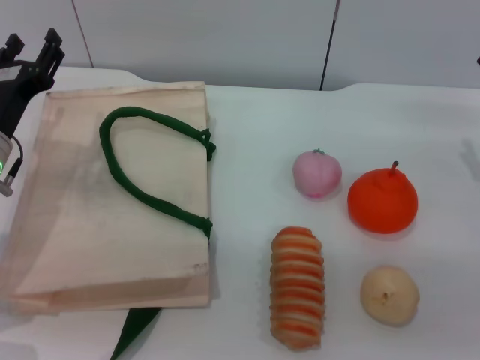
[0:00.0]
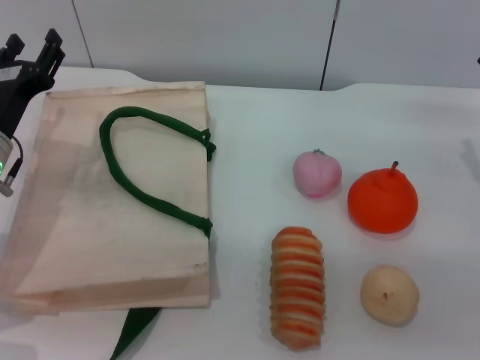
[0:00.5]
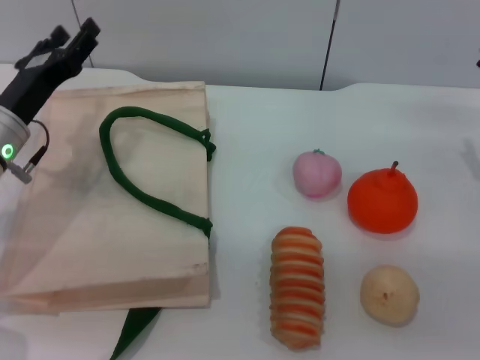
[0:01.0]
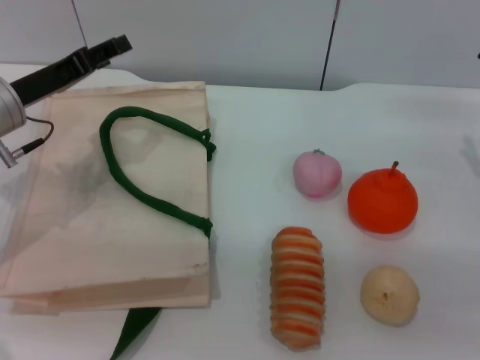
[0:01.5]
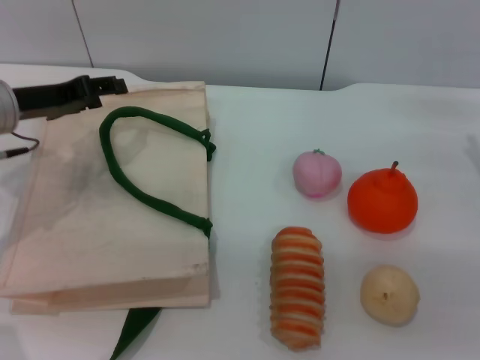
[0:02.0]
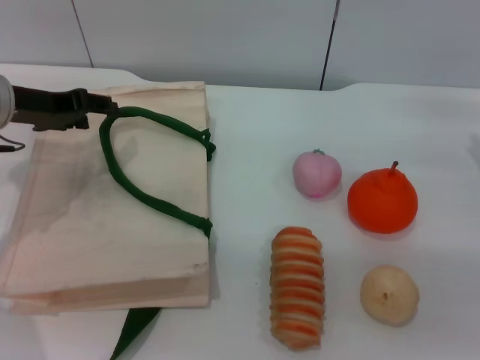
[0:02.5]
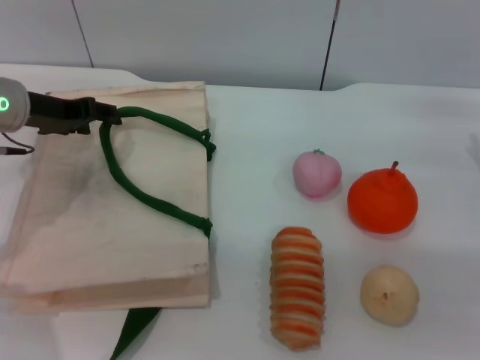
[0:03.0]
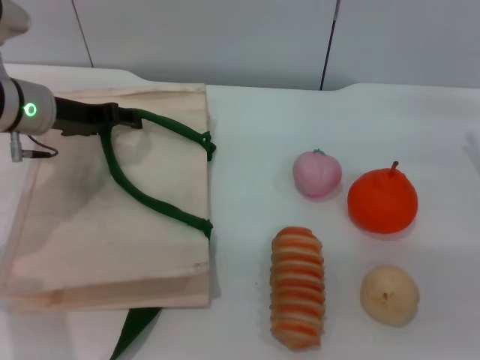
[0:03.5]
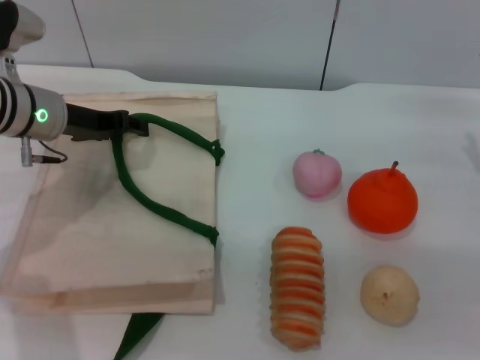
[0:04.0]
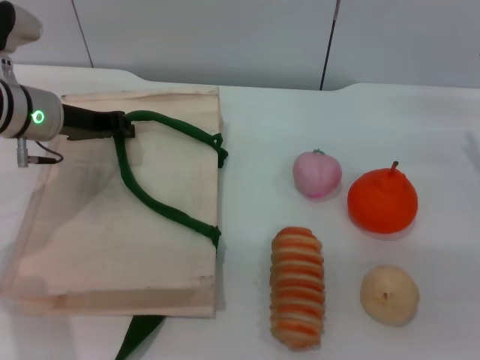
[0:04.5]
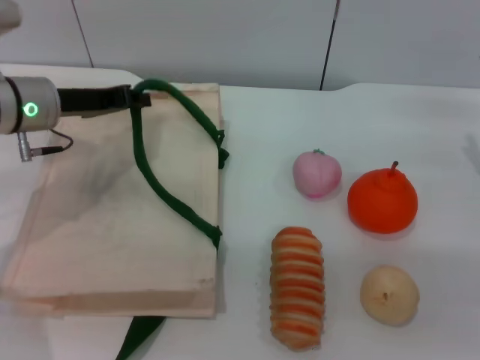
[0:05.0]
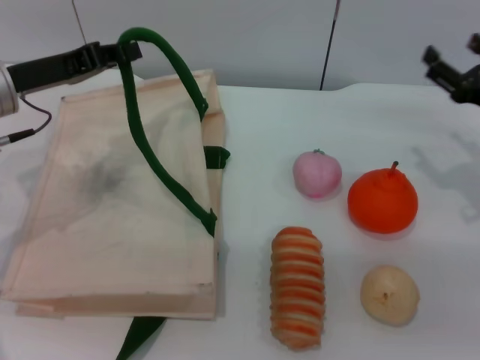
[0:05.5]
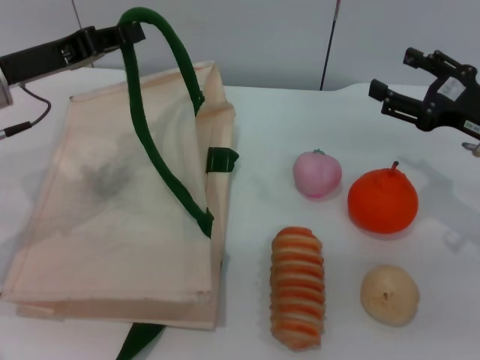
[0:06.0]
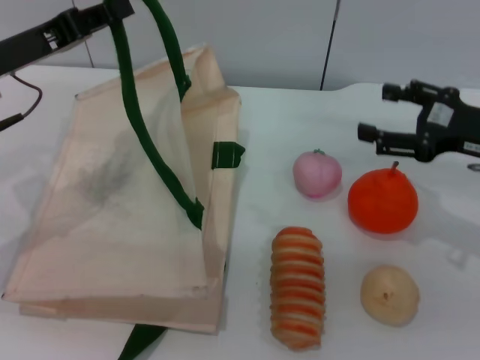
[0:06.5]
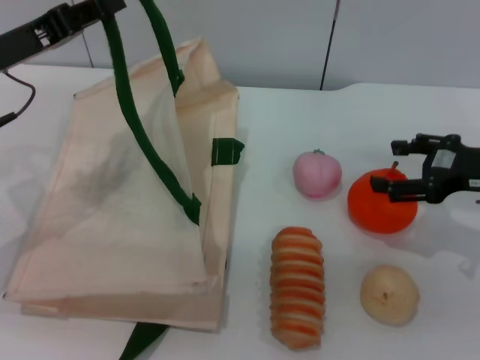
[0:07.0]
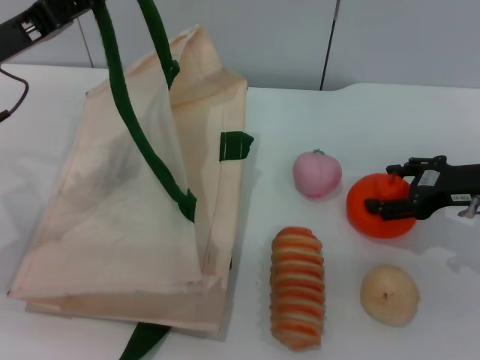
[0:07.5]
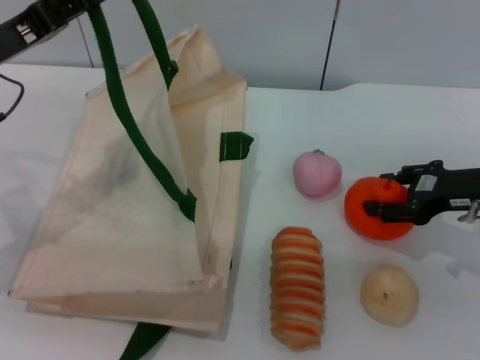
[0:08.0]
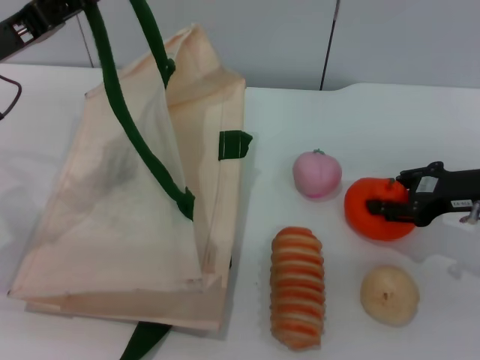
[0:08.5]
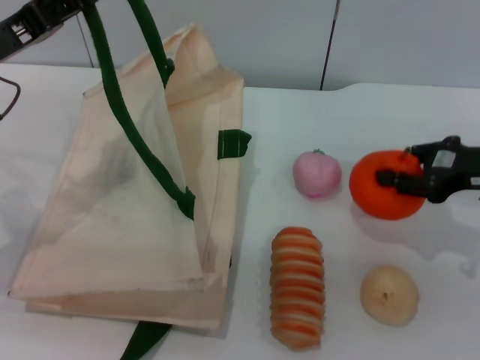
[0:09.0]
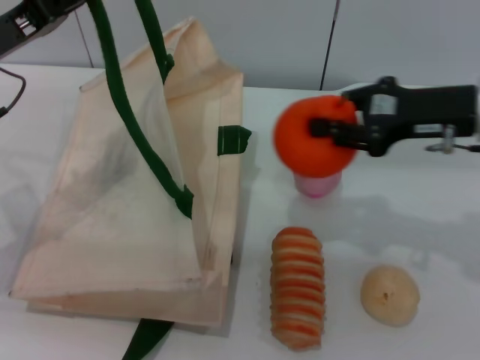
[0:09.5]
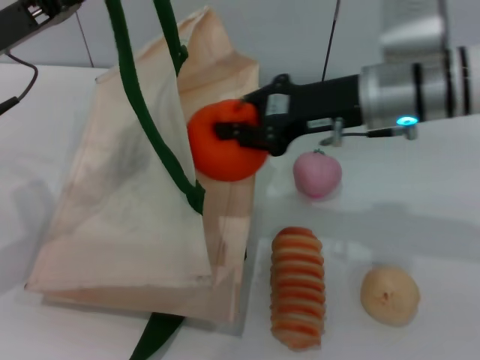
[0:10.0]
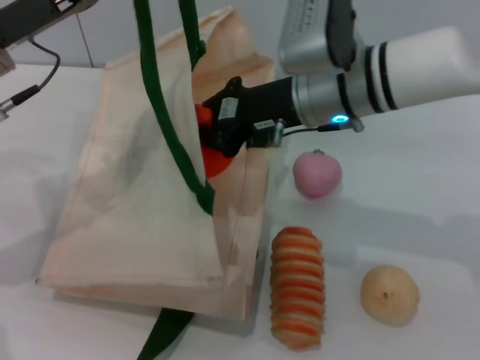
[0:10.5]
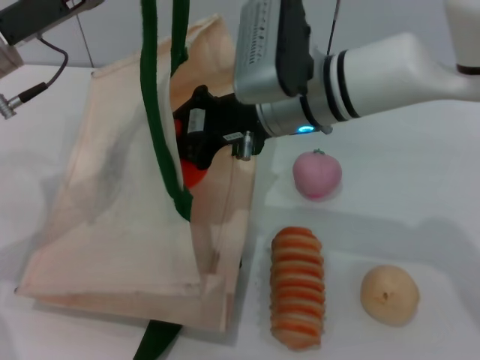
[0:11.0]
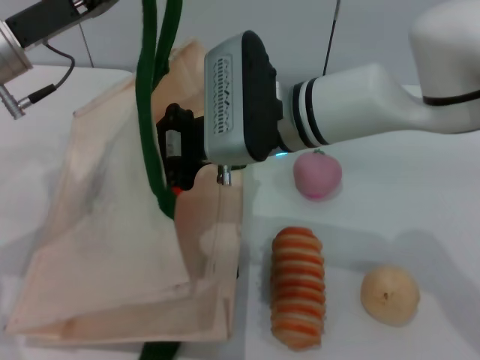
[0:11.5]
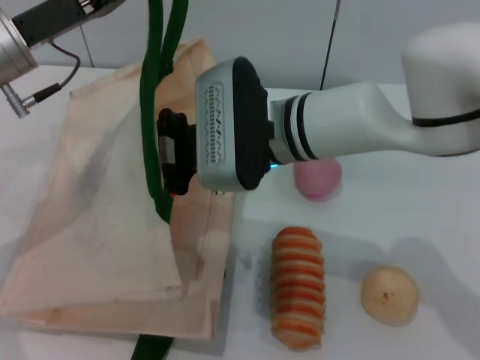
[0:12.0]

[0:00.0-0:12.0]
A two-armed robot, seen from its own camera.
Task of the whole recording: pick up the orange and peach from the table and place it in the white handbag.
Step, 0:00.0 to 0:05.0: Lift the woven bag with the left gripper to open it.
Step, 0:05.5 to 0:09.0: Pick up the orange with the right gripper.
0:00.0 to 0:02.0: The left gripper heads upward, covering roughly 5 cm.
0:02.0 to 0:04.0: The left gripper ends up roughly 5 cm from where it was.
0:04.0 to 0:06.0: The left gripper ends up approximately 5 cm from where it was, and closes up.
0:08.0 to 0:10.0: The right gripper is displaced to the left and upward by approximately 15 cm, and closes up.
0:10.0 to 0:12.0: The right gripper goes about 10 cm to the left.

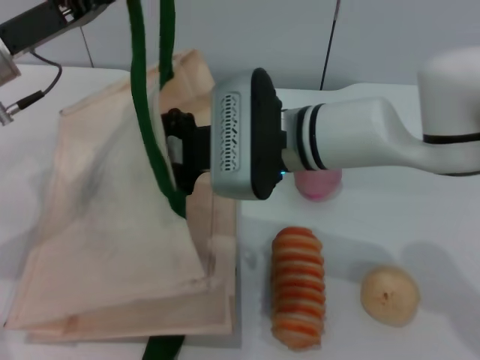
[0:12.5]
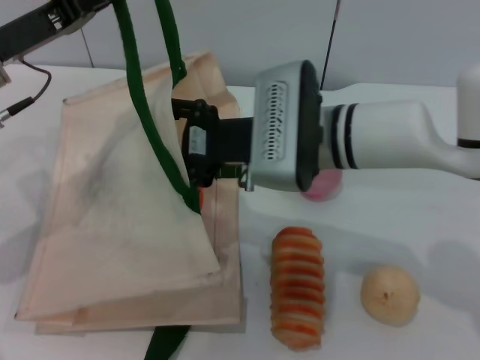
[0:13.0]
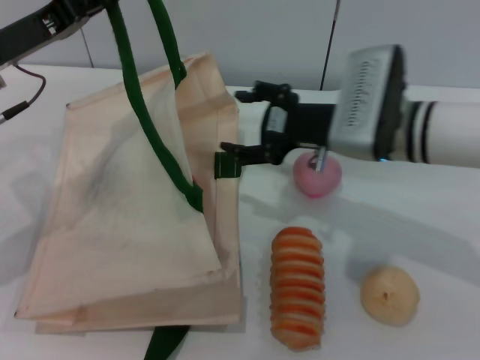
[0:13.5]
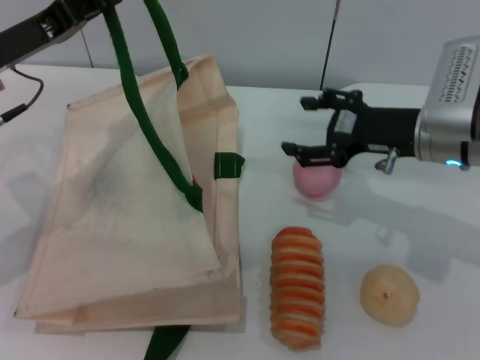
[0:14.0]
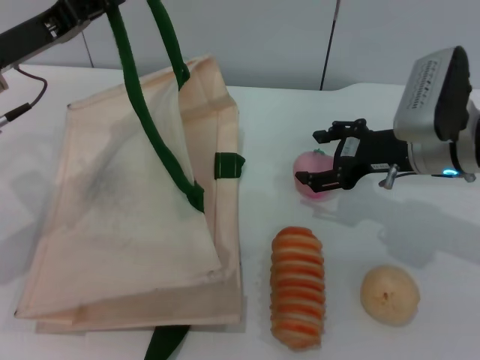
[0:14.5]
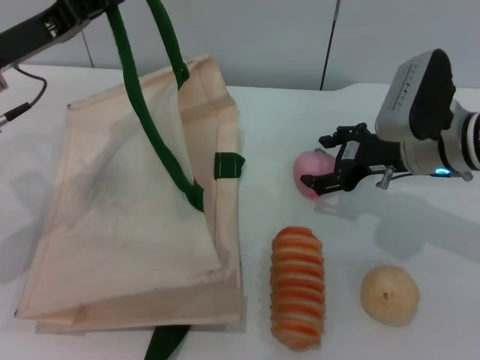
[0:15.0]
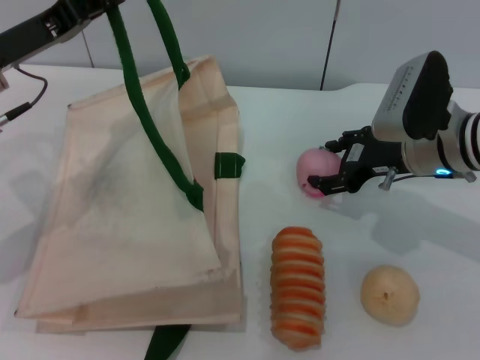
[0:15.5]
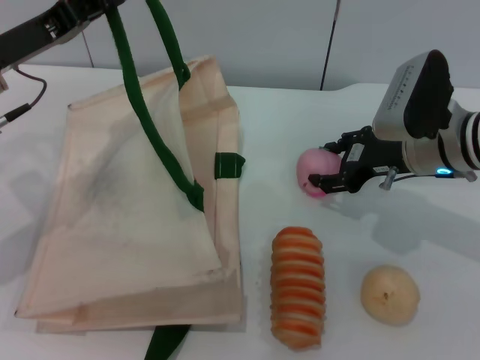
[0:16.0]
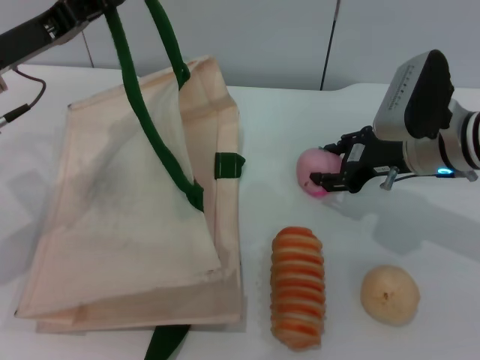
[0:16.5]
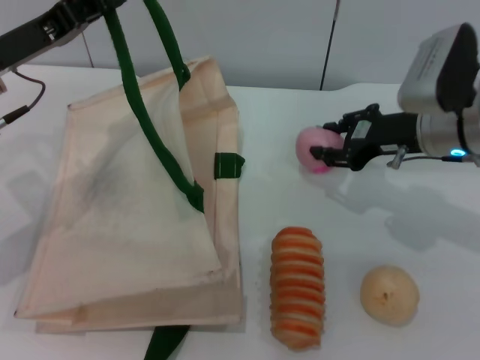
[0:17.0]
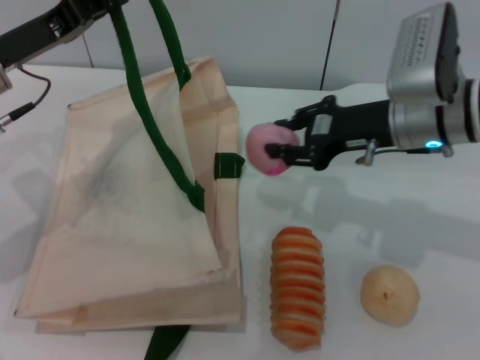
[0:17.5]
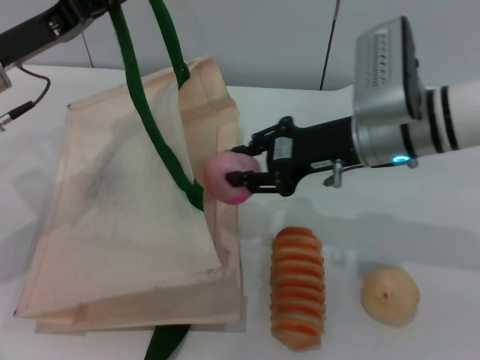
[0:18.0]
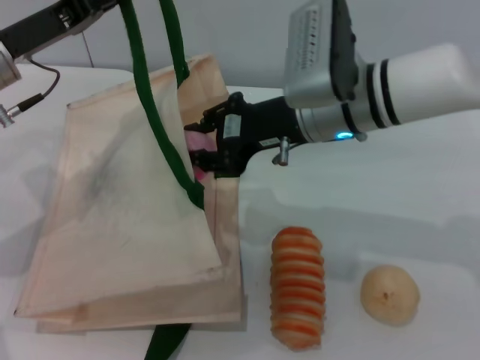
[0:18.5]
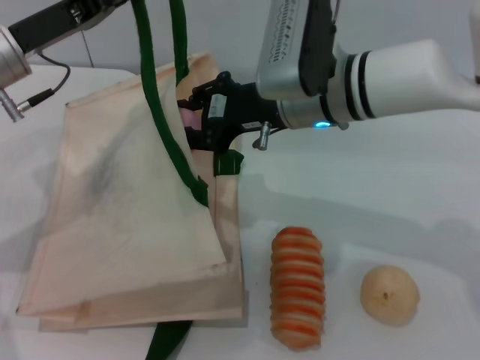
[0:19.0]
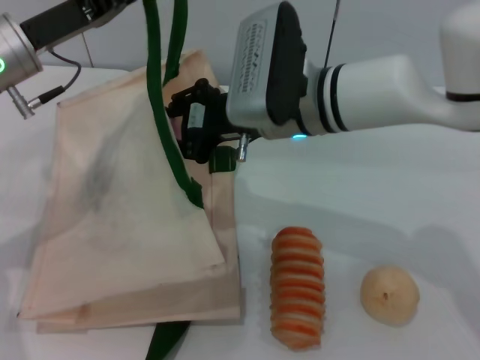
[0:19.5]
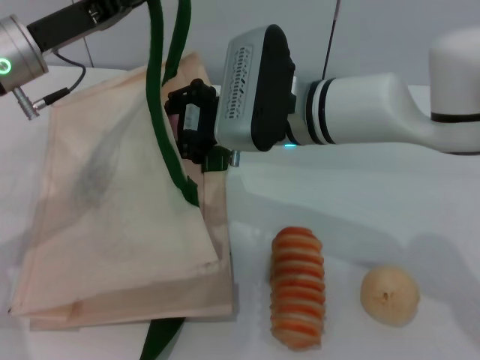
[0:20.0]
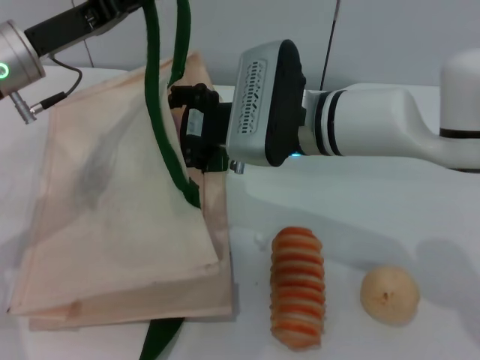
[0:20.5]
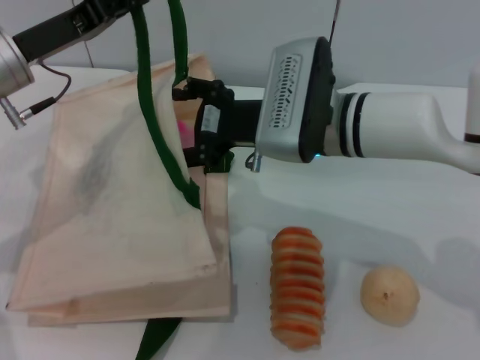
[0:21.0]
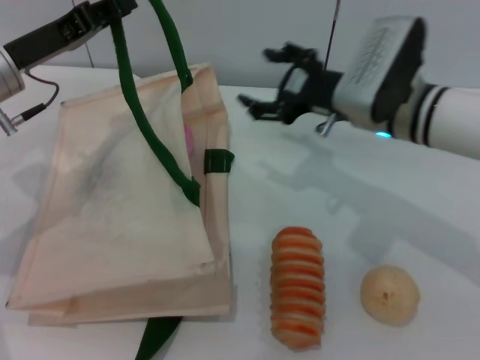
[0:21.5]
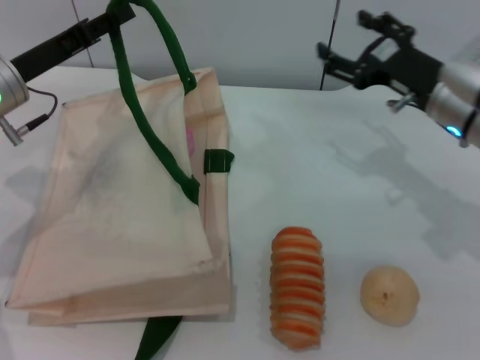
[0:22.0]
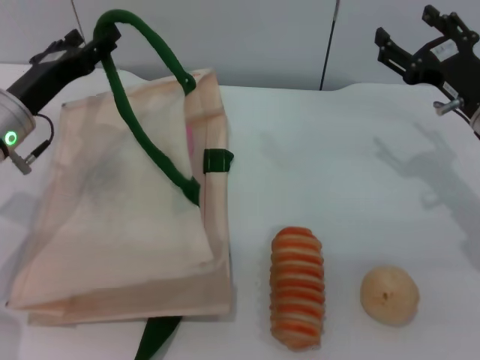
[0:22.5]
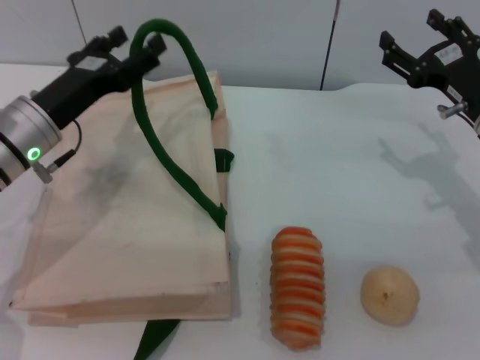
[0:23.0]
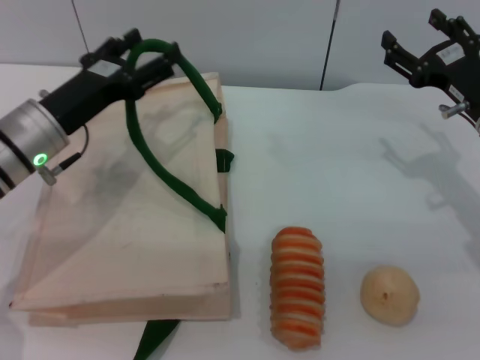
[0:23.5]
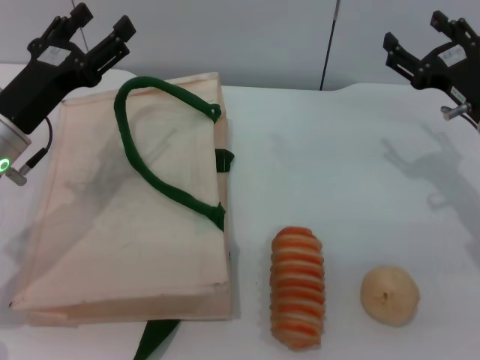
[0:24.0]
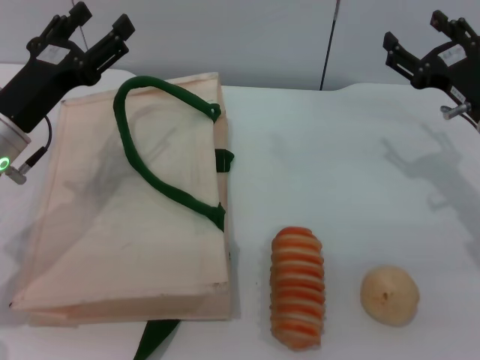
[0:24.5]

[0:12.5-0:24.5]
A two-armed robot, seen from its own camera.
Task of the whole recording: pick up the orange and peach from the table and place it in the white handbag.
Step, 0:13.5 to 0:16.5: Pick up the peach with the right gripper.
Step, 0:17.0 to 0:21.0: Place the peach into the woven bag with the right gripper.
Step, 0:21.5 to 0:24.0: Lower the woven bag with the left gripper to close it.
0:12.5 to 0:14.5: The right gripper goes some 15 cm to the right, and opens.
0:14.5 to 0:16.5: The grippers move only a little.
0:16.5 to 0:18.5: The right gripper is displaced to the left and upward by about 15 cm.
0:20.5 to 0:22.5: The left gripper goes some 5 cm downward, and opens; the right gripper shifts approximately 20 cm to the right, and opens its fingers.
